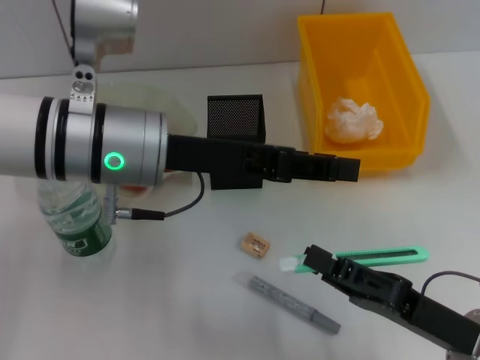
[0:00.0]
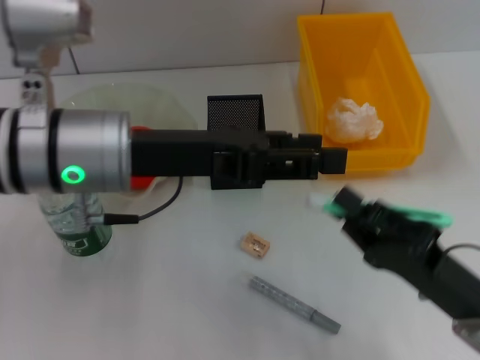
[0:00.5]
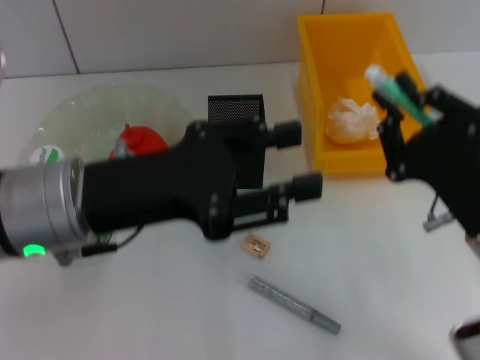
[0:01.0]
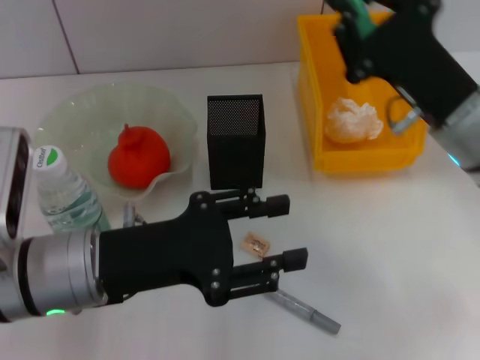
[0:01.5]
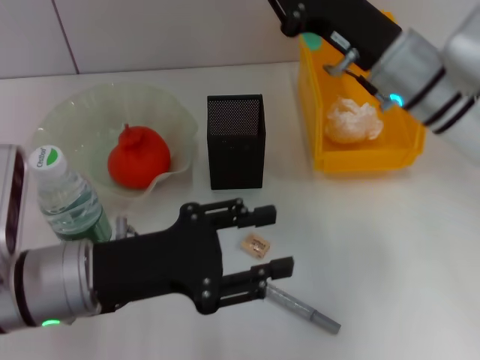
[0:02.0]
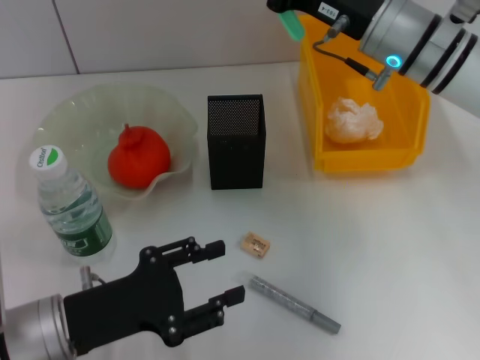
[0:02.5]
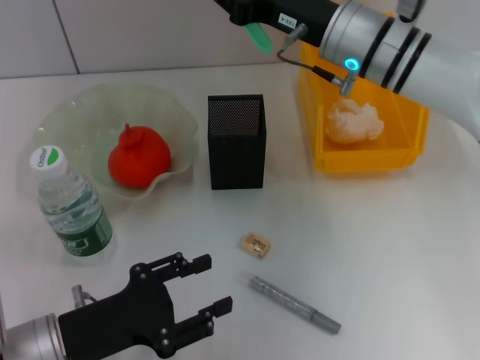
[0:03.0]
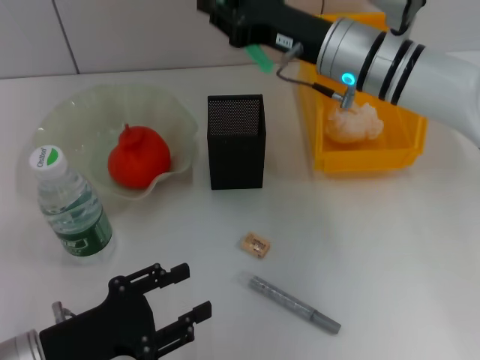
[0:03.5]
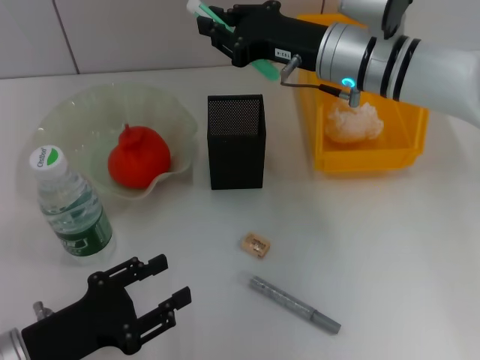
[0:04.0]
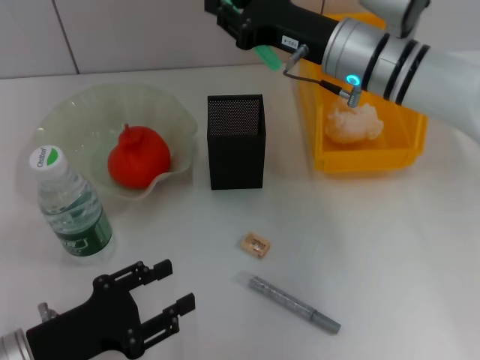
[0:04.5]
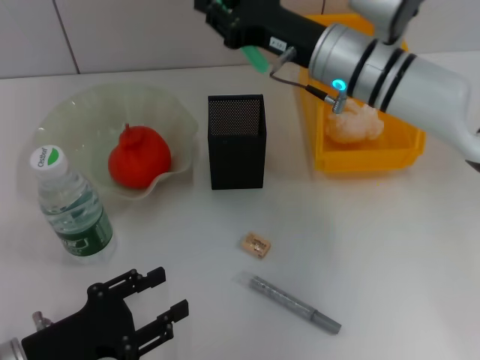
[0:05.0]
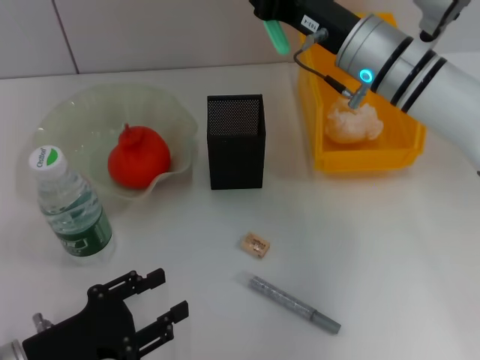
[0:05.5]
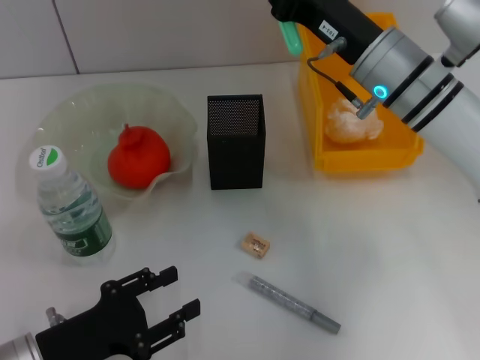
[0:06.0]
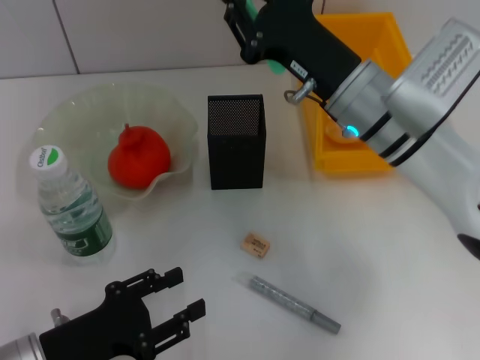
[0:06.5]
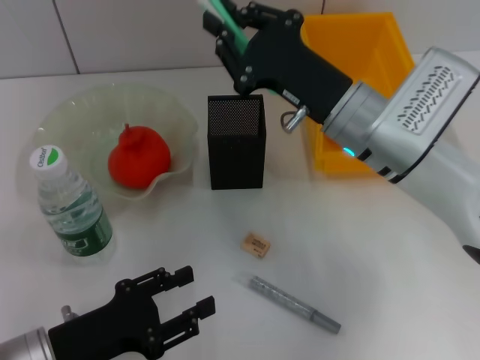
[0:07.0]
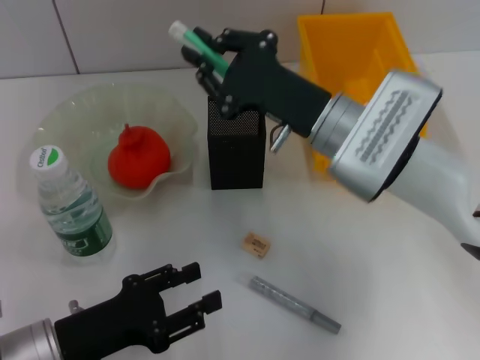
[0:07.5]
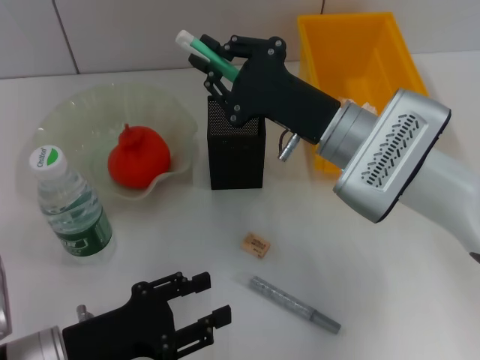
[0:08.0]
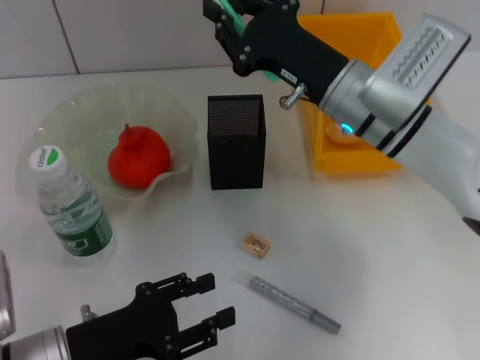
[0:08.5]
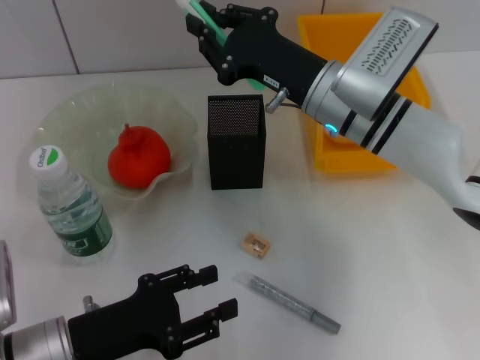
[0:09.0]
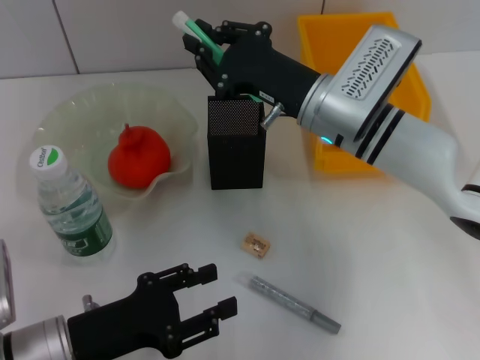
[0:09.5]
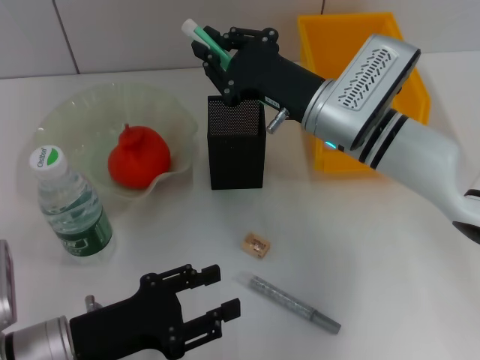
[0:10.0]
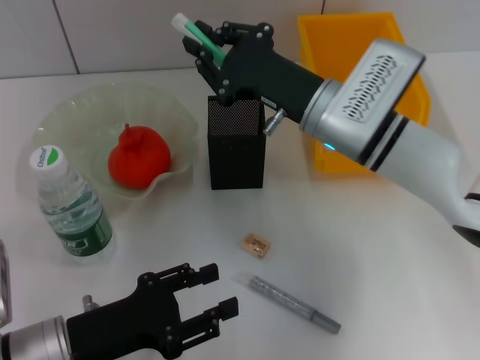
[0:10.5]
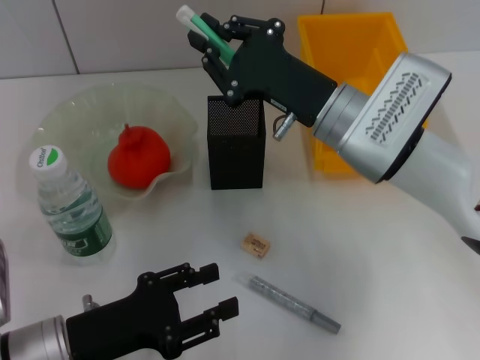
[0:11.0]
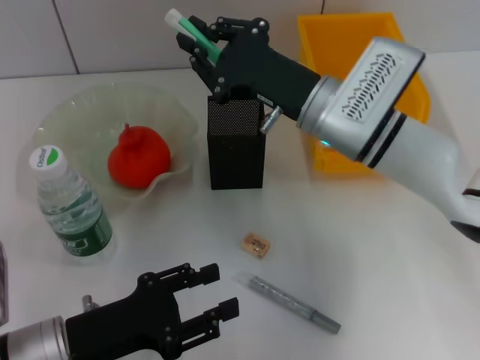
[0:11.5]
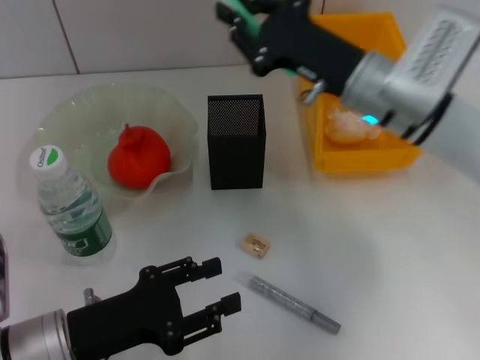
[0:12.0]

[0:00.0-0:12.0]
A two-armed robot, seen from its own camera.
0.0 to 2.0 s: The right gripper is displaced forward and upward by about 25 cm. Meanwhile the left gripper moves downward, backward and to the left, some 15 cm, and opens up.
2.0 to 4.0 s: The left gripper is displaced downward, to the left and backward by roughly 10 cm, while the right gripper shifts by some 5 cm.
6.0 to 8.0 s: The right gripper changes place by some 5 cm.
10.0 to 12.0 s: The right gripper changes place by roughly 5 cm.

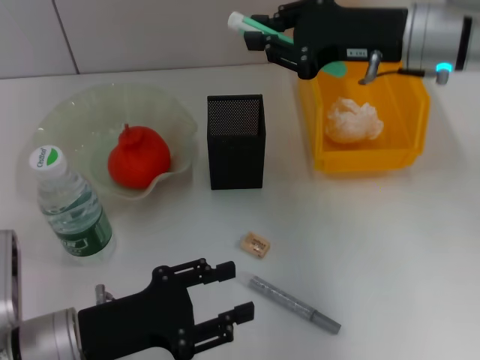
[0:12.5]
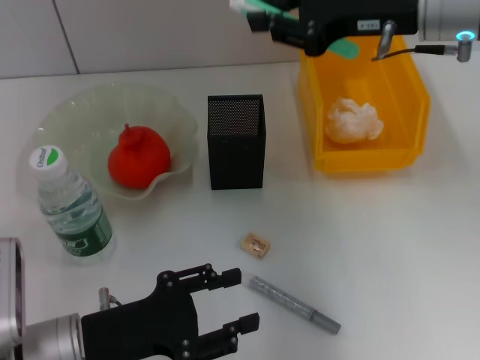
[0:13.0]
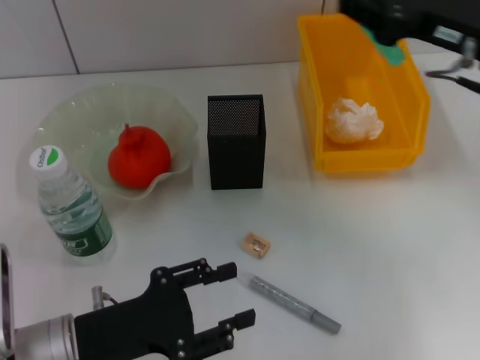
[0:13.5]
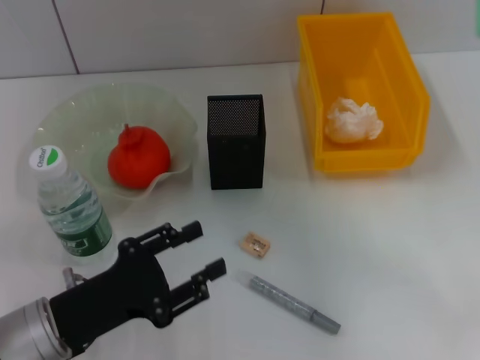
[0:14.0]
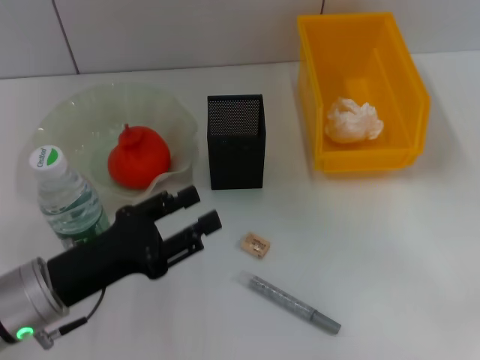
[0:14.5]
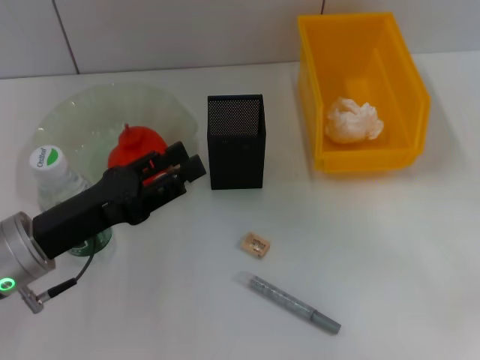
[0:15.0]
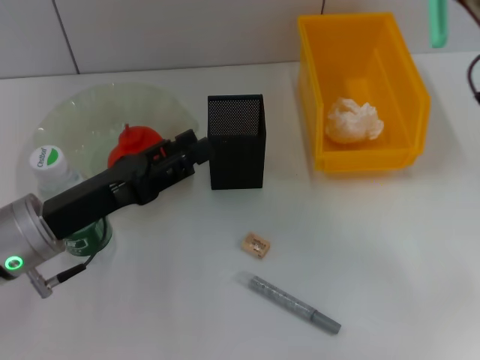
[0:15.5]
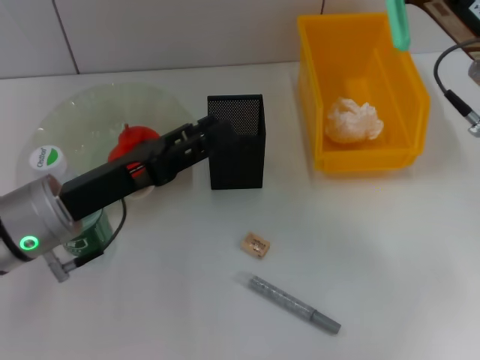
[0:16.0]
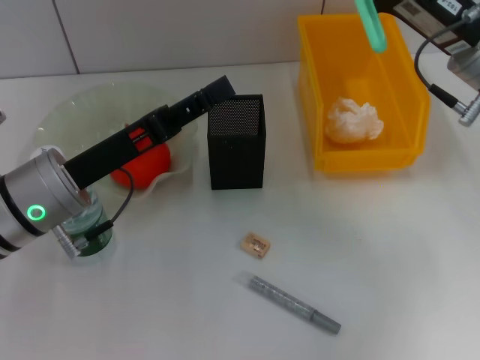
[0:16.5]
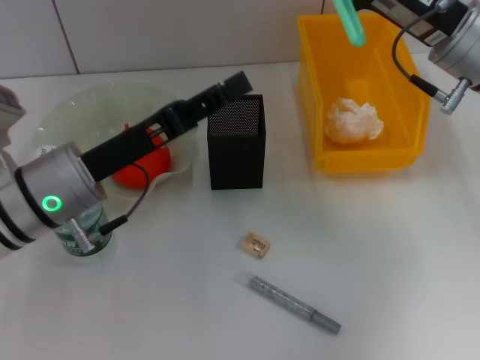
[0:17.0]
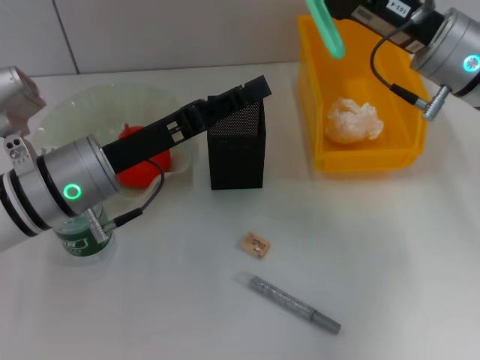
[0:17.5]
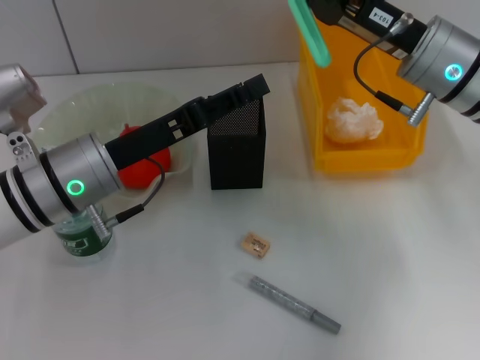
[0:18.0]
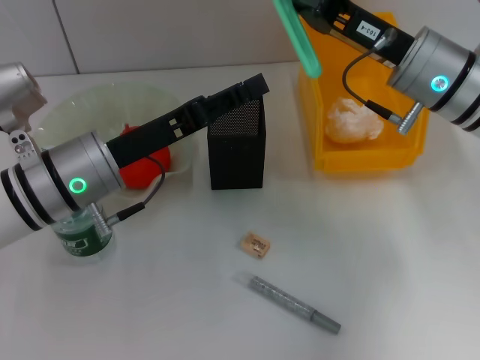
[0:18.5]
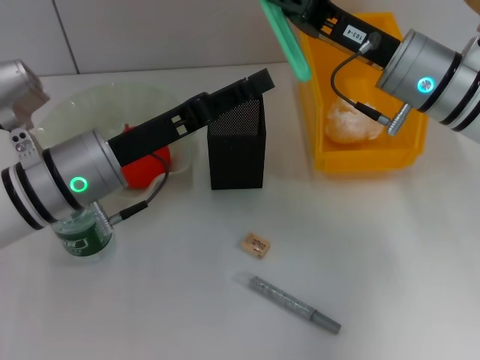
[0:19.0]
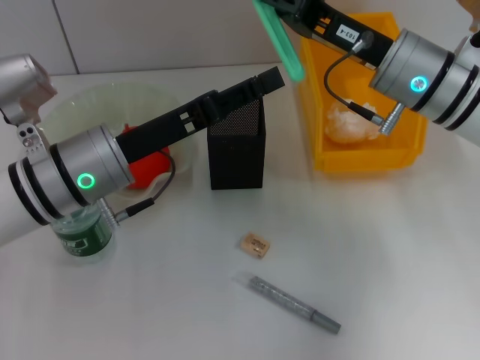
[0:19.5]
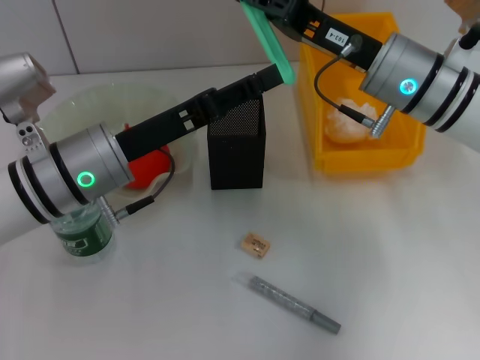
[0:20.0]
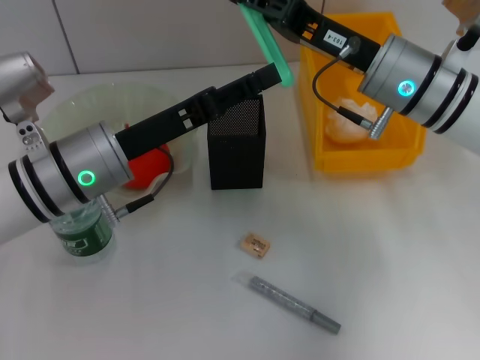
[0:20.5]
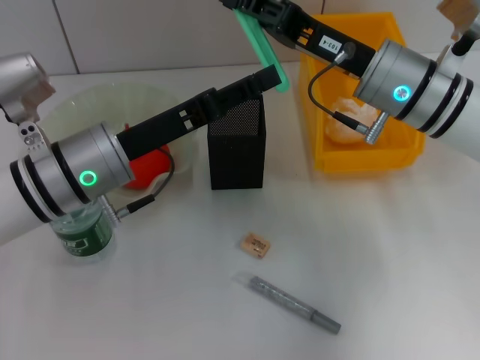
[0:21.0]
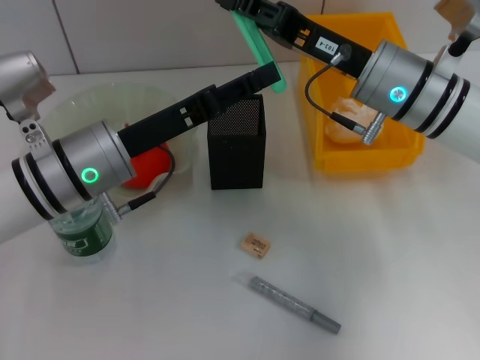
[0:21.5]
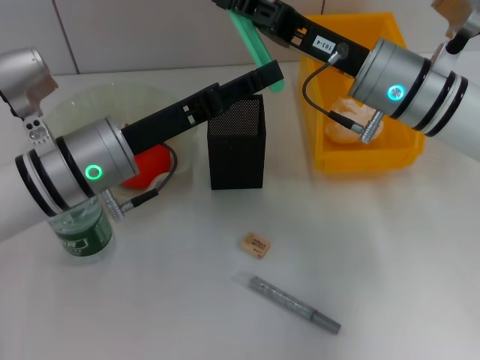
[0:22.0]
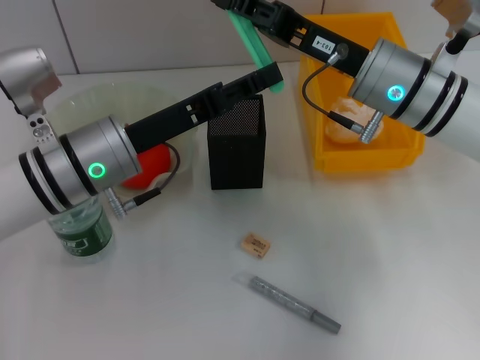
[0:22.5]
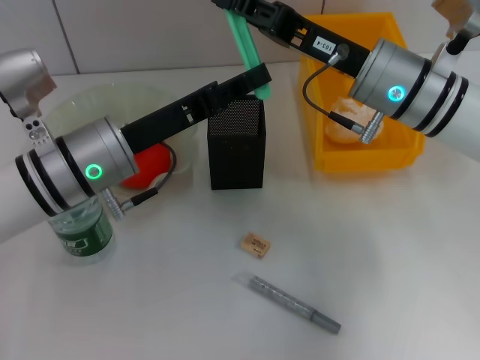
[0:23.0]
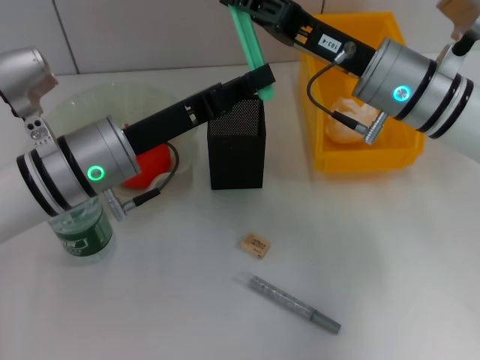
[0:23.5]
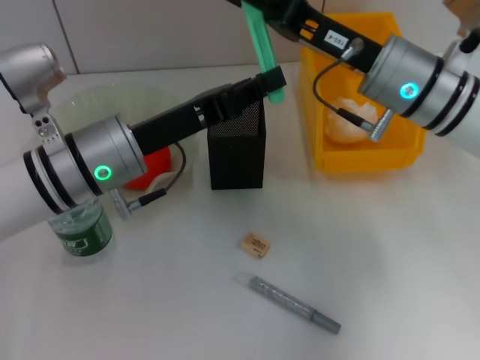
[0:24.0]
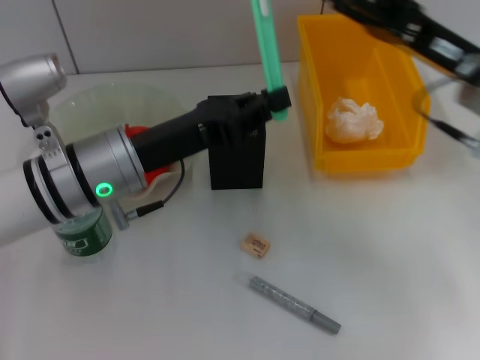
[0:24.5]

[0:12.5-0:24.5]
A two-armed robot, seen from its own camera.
Step, 12.5 to 24.0 s: Pass the blue utility knife from the right hand to the left hand.
12.5 to 14.5 s: The right gripper moves to the right and backward, approximately 15 cm.
14.5 to 16.5 s: The right gripper heads to the left, covering about 5 cm. The left gripper goes approximately 10 cm forward and upward.
16.5 to 18.5 s: The grippers make only small movements.
18.5 to 20.5 s: The grippers move only a little.
20.5 to 22.5 s: Neither gripper changes place.
22.5 to 24.5 s: The left gripper closes up. Meanwhile the right gripper travels to the right by about 10 cm, and opens.

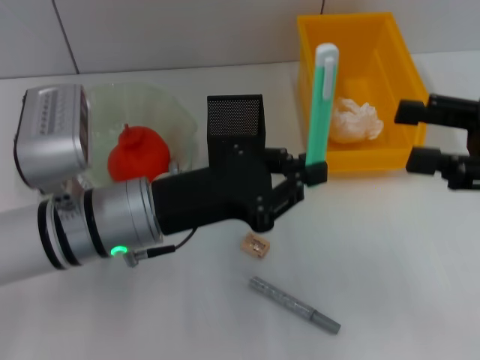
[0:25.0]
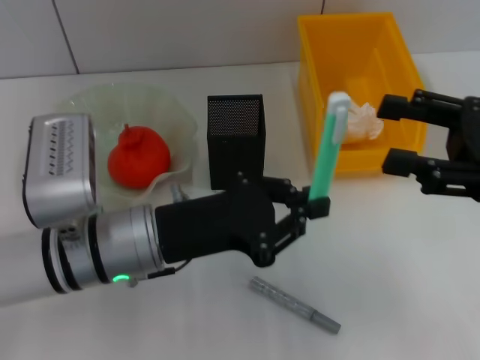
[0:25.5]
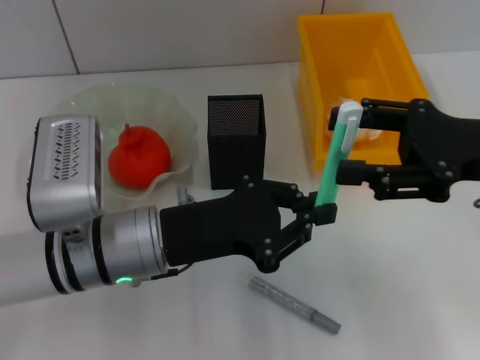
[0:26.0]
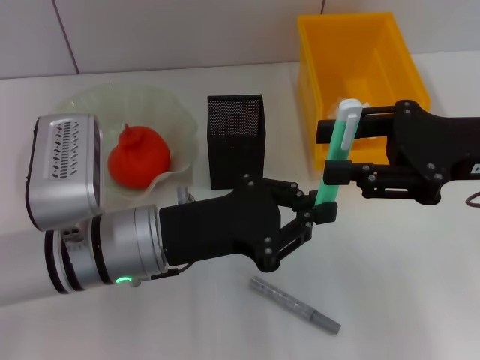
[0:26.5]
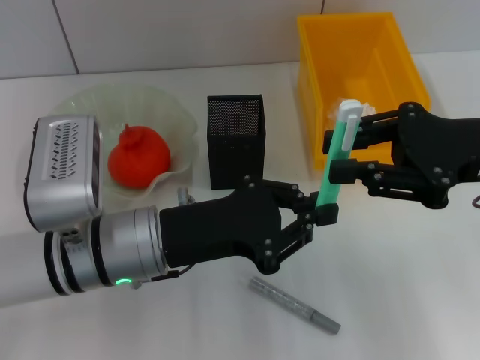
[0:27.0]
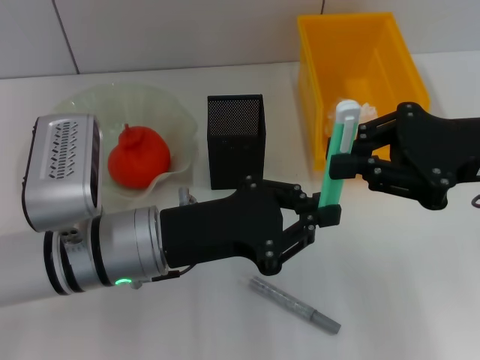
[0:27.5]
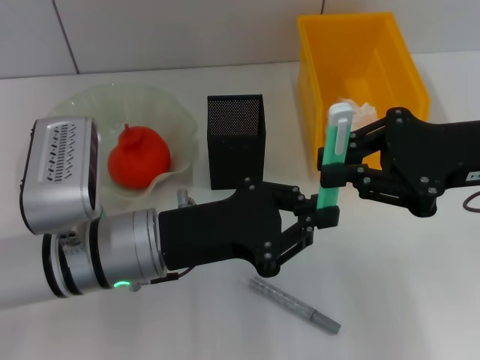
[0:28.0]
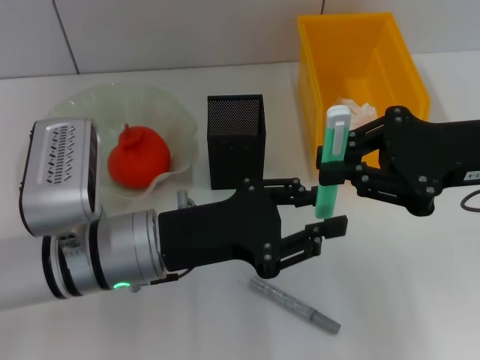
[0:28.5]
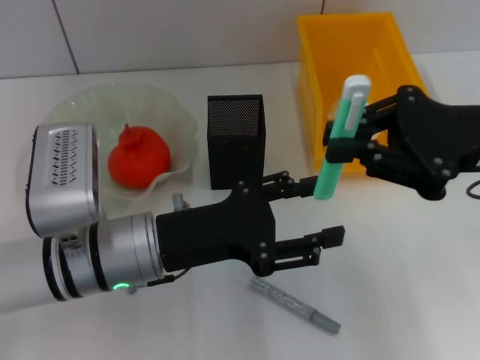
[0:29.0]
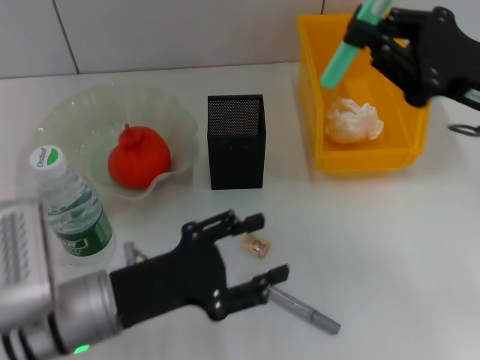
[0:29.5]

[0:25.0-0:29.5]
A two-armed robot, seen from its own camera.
Step, 25.0 to 28.5 s: Pass the blue utility knife from the left hand to the right hand.
25.0 to 27.0 s: The right gripper heads to the left, covering roughly 5 cm, and closes up.
27.0 to 29.5 s: The left gripper moves roughly 5 cm, and opens up; the right gripper closes its fingers.
